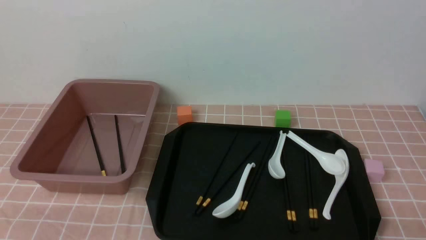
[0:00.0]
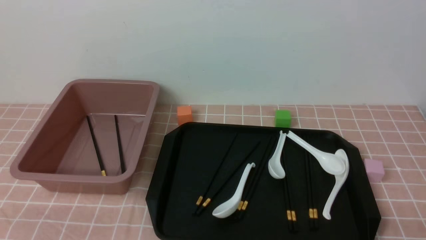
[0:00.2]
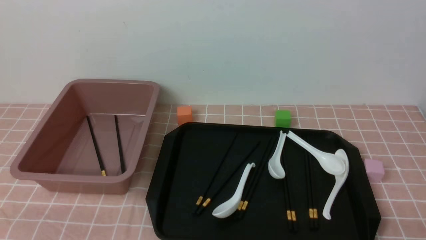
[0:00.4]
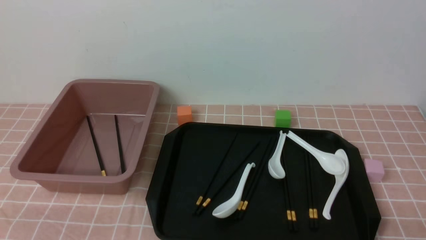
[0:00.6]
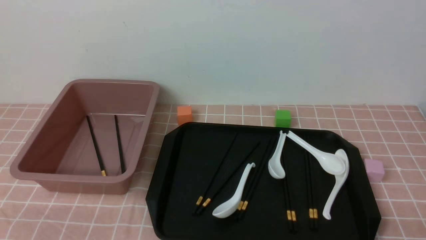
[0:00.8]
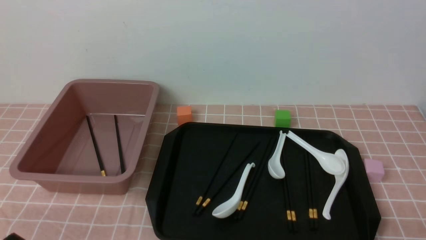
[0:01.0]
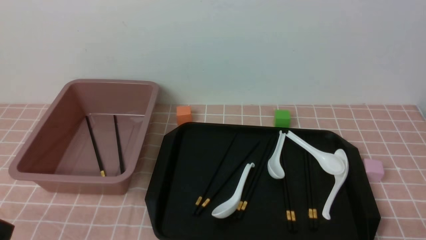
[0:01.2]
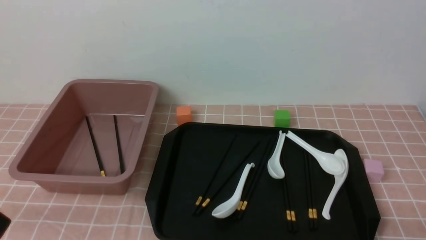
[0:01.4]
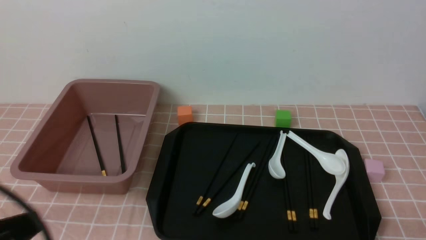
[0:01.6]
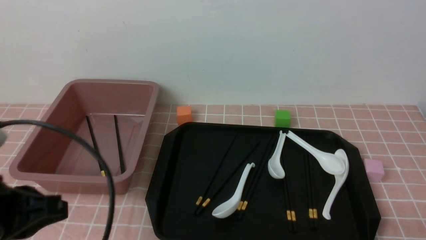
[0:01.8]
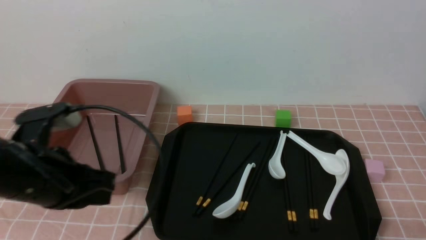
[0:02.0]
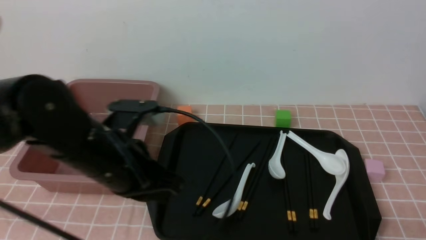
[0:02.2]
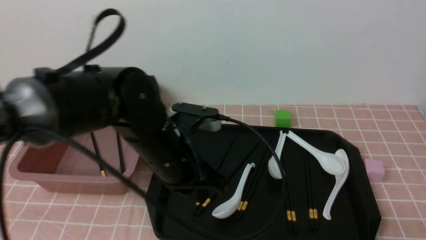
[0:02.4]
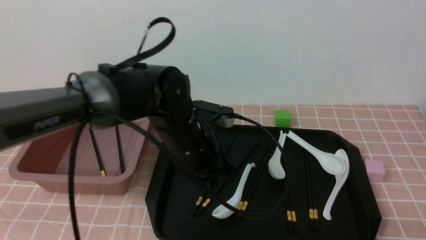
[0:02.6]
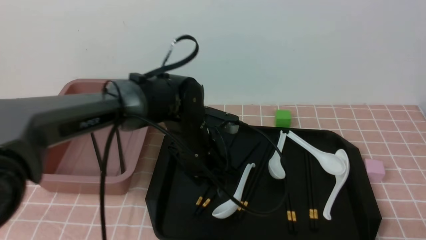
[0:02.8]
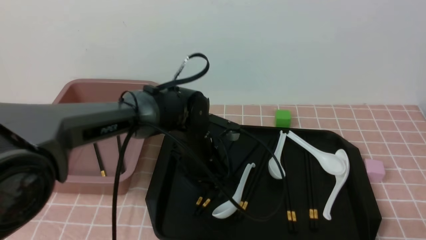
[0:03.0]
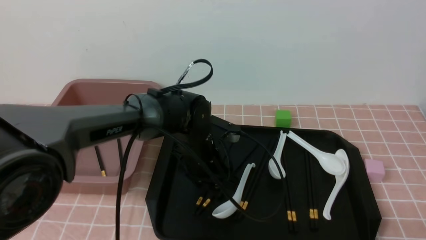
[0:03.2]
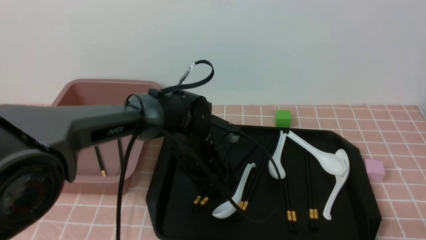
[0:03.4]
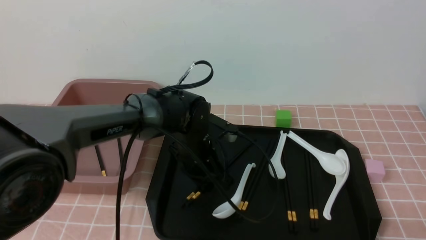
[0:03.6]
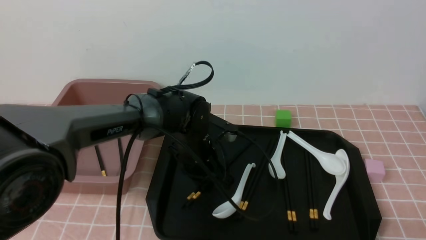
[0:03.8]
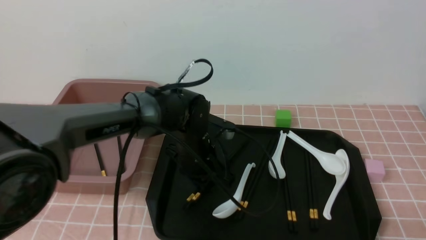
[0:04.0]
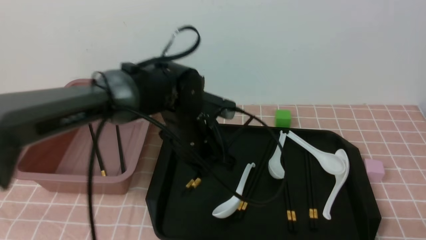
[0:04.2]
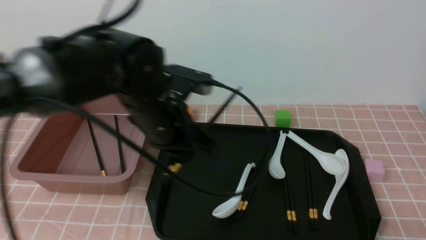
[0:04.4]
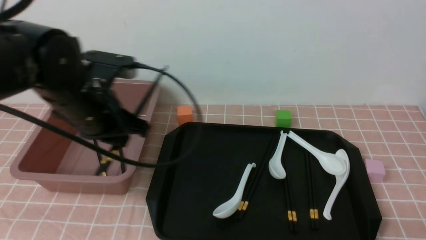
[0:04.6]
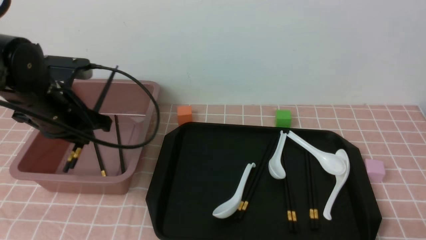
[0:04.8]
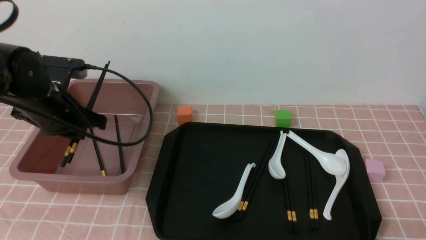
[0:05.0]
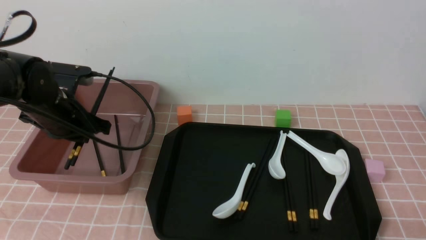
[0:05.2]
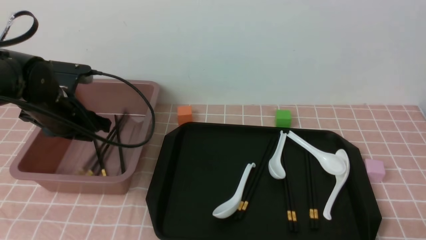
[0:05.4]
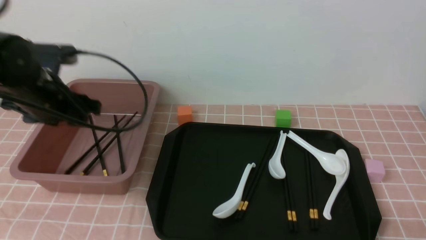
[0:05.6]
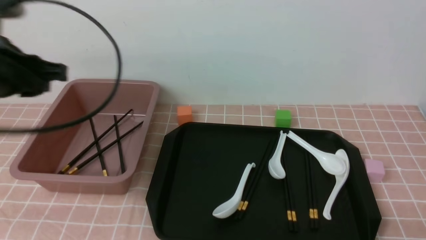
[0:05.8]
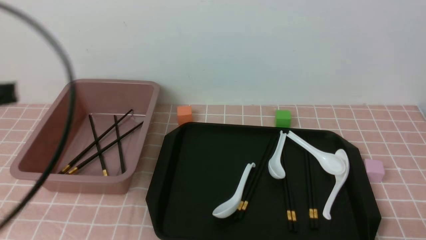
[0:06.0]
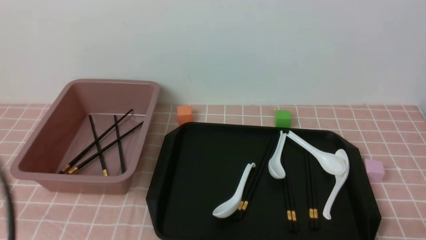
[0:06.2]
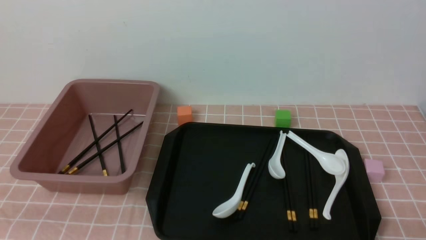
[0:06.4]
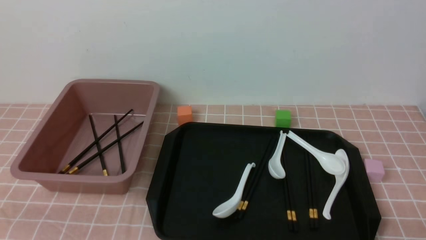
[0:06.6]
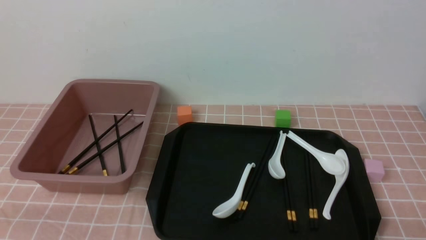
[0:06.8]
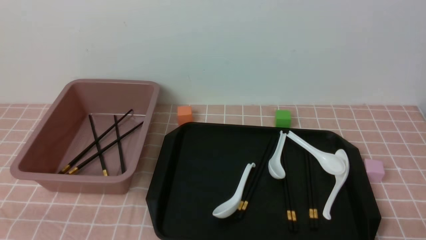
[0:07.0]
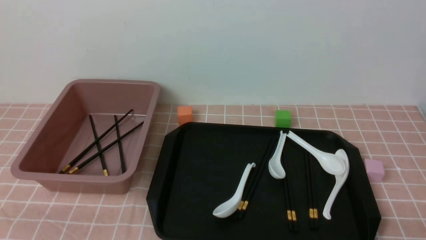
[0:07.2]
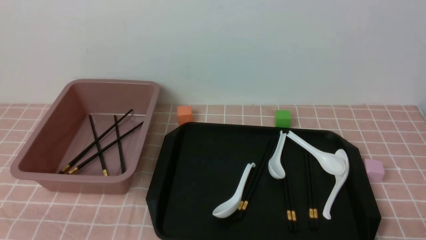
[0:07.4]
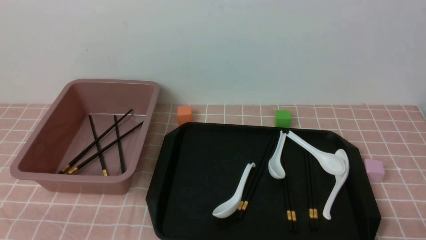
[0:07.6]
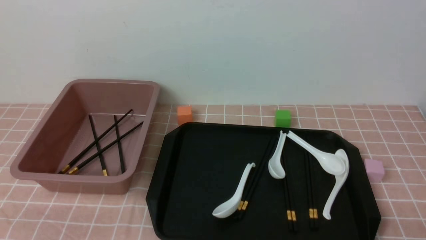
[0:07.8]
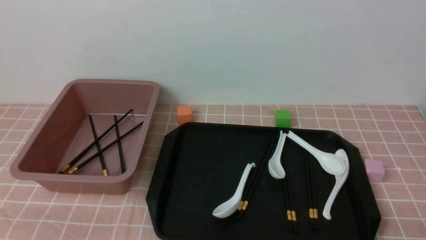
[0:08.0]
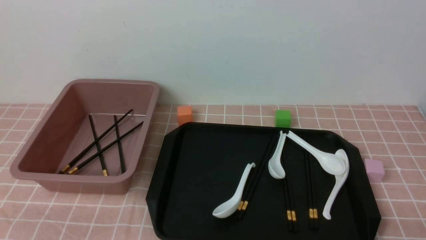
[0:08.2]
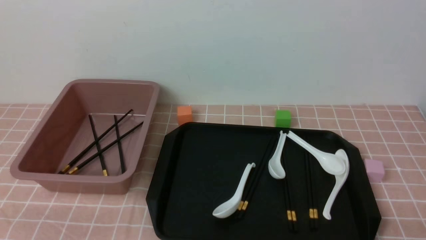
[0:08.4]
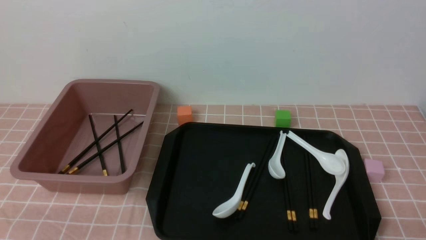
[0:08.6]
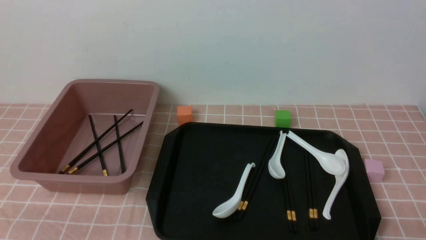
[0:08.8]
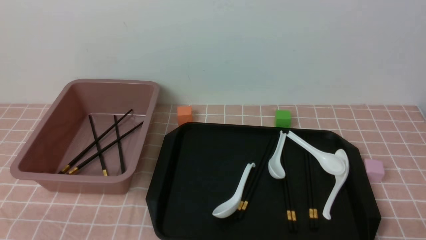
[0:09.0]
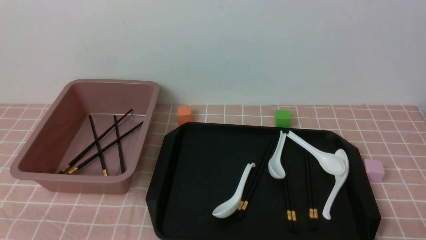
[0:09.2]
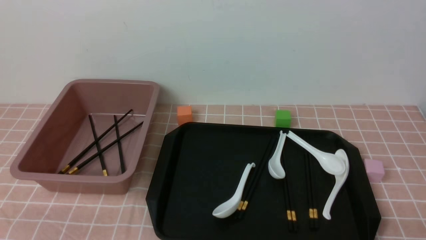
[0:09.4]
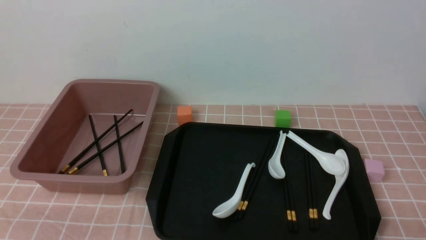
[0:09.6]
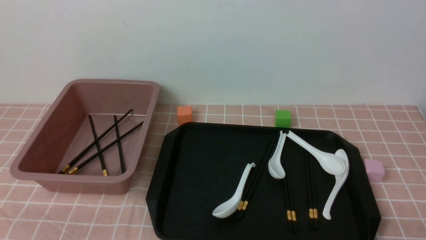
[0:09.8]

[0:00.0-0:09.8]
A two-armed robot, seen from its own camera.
Step, 0:00.0 to 0:04.2: use the left arm to grab a pair of chopsticks.
Step, 0:04.4 to 0:05.6: use the left arm to put the chopsticks into the lunch box.
0:01.4 to 0:02.8: The left gripper goes approximately 35 cm forward and to the right, and opens.
0:02.8 to 0:04.2: The left gripper opens and closes again.
0:04.2 to 0:05.6: The left gripper shifts some 20 cm to the left, and opens up.
0:05.6 to 0:07.0: The left gripper travels backward by some 30 cm, and closes up.
0:08.4 to 0:09.8: Both grippers stay put.
